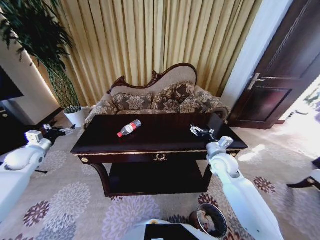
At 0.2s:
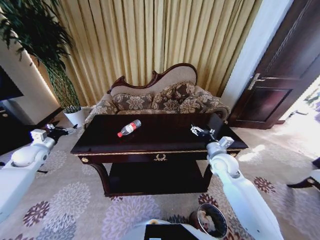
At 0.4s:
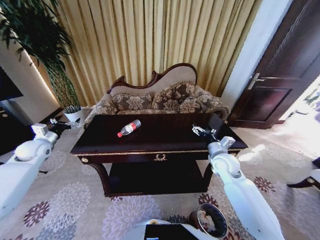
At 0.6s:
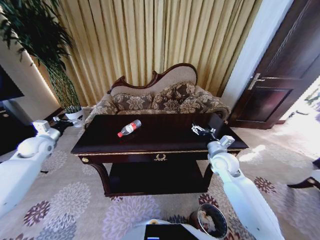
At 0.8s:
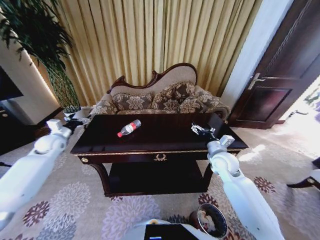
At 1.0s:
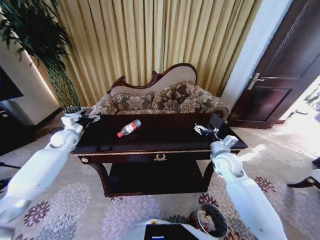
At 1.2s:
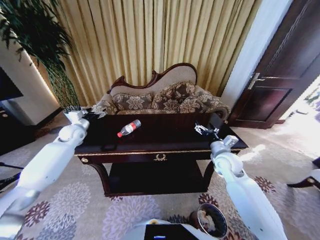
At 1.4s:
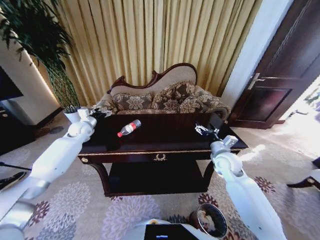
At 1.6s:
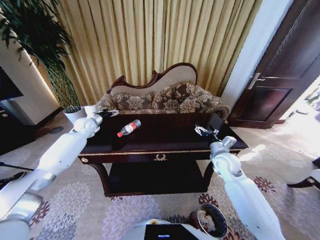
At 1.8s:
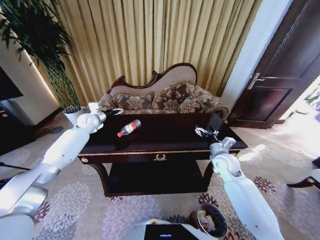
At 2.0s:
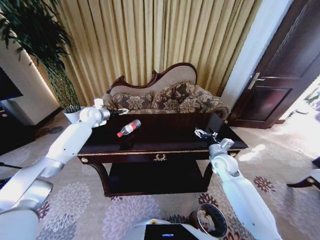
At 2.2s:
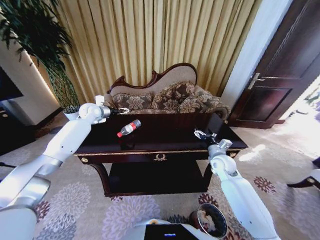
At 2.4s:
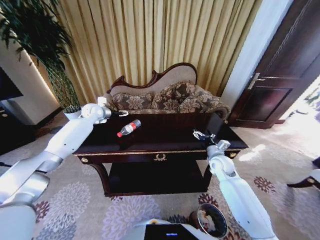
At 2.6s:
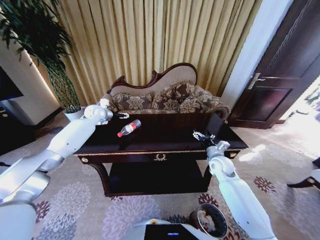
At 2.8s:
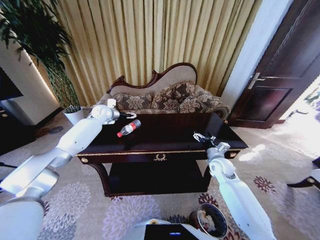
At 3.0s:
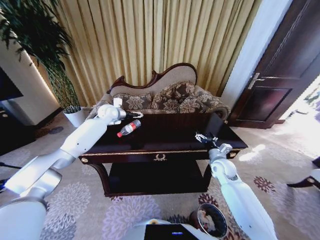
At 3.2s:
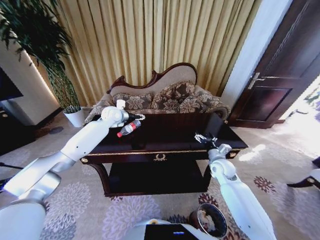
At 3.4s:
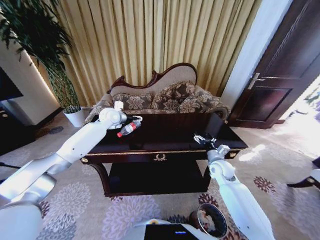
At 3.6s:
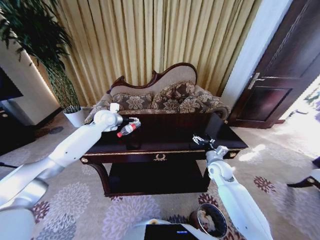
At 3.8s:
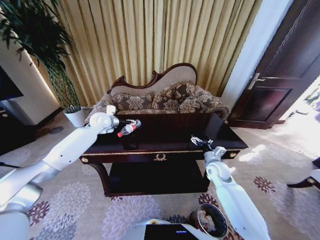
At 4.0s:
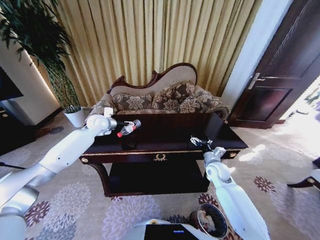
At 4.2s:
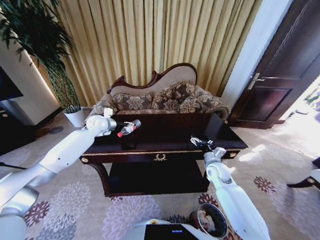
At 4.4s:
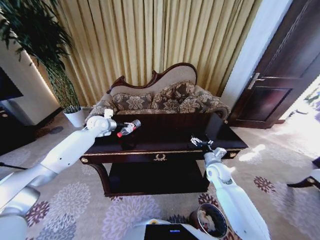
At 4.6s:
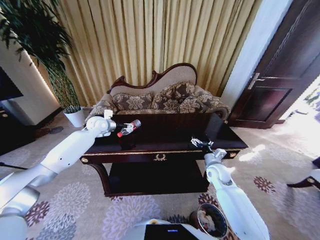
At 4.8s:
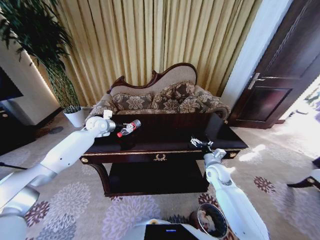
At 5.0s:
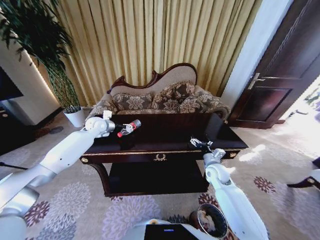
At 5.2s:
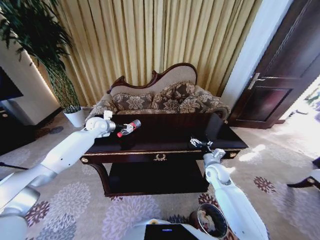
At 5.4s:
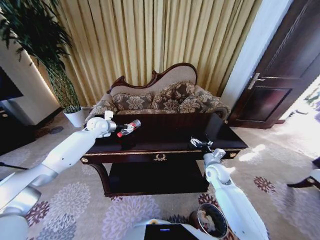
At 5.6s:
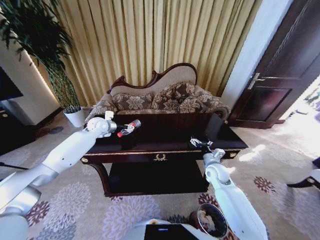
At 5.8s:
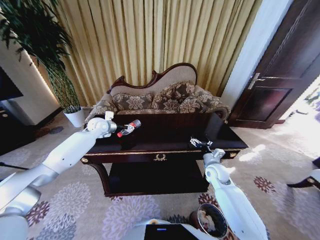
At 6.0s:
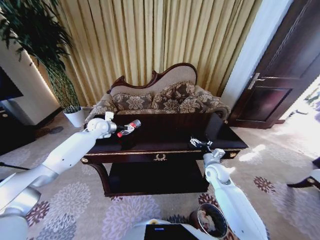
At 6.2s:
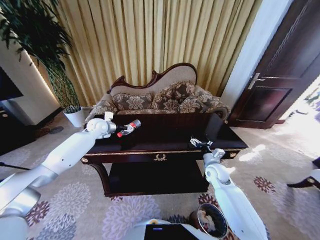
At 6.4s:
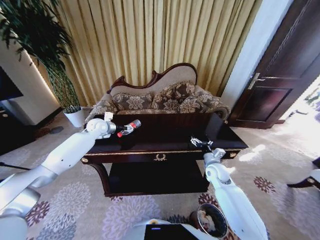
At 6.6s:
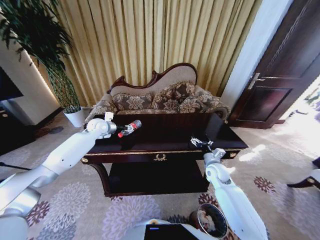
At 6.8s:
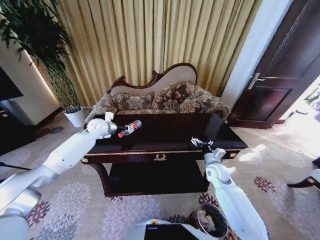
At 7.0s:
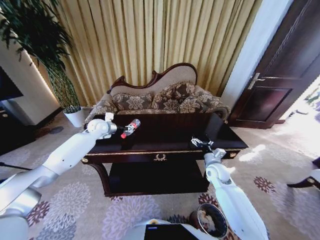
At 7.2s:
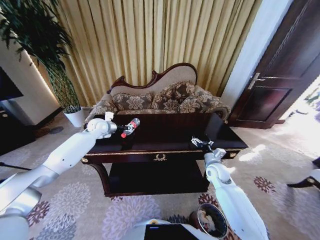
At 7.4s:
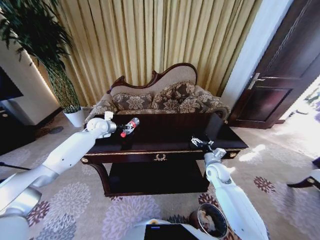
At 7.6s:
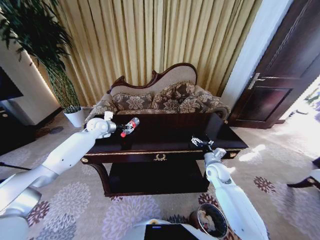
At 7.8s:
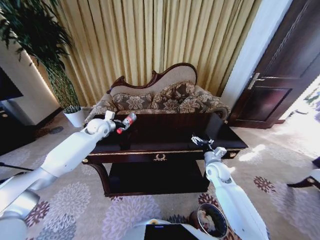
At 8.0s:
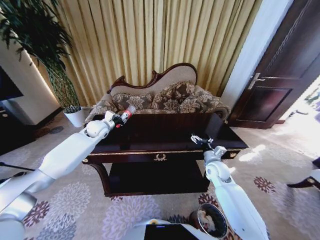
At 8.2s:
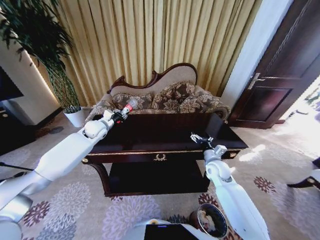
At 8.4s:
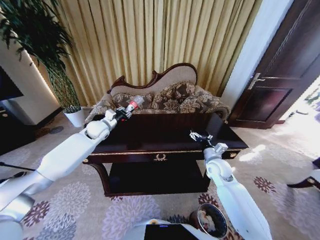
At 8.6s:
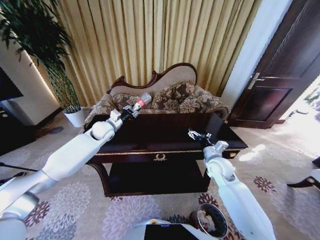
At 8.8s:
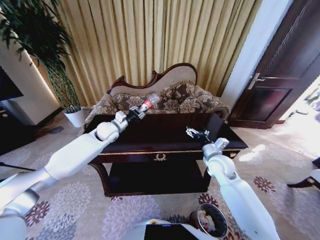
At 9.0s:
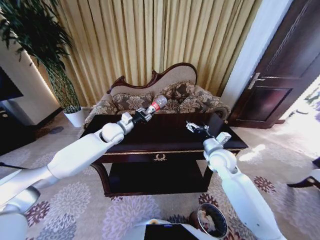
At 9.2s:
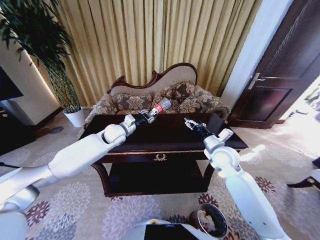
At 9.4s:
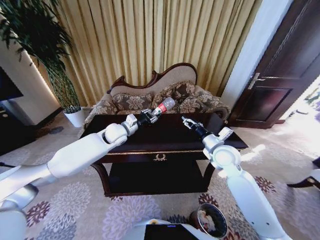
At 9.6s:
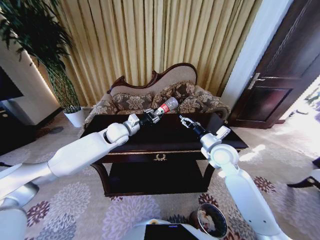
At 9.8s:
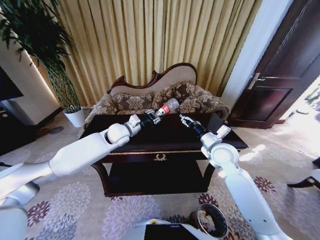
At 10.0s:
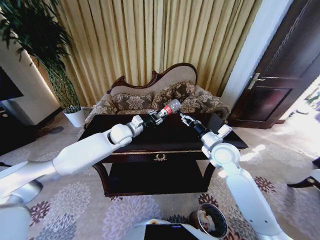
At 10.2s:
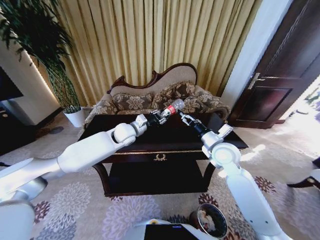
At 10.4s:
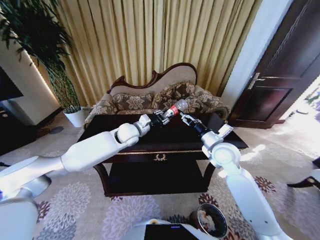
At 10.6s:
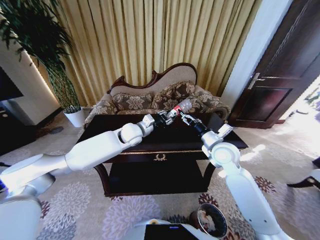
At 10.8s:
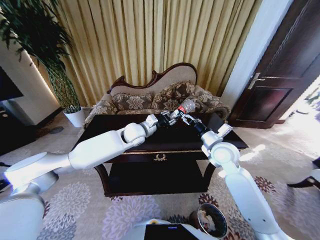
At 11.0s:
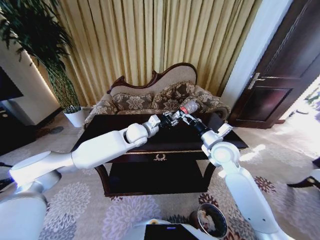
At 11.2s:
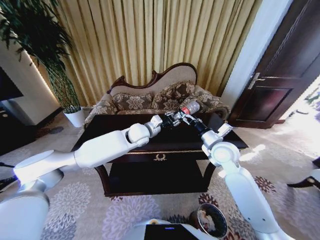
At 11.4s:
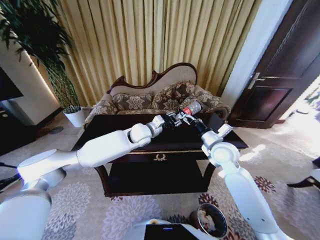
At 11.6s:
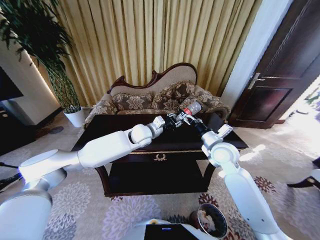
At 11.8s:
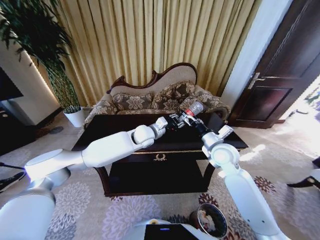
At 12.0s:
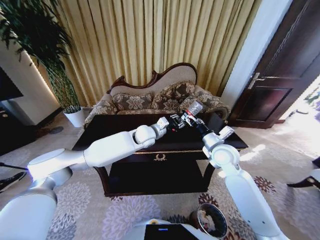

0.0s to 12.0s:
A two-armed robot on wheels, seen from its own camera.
Task of the whole recording: Move to the front of the table and place the trash on the table into the trash bin.
0.0s to 1.6s: The left gripper travels forward and to the right by some 25 cm.
1.6s to 3.0s: The right gripper goes about 5 cm downward. The left gripper is displaced to the right by approximately 10 cm.
3.0s to 4.4s: The left gripper moves backward, approximately 5 cm.
4.4s to 6.0s: There are only small adjustments of the grippers.
6.0s to 7.6s: The left gripper closes up.
7.6s to 9.0s: The right gripper heads upward, covering about 10 cm. Meanwhile the left gripper is displaced to the right and backward by some 10 cm.
9.0s to 10.4s: The left gripper is displaced to the right by approximately 10 cm. Meanwhile the right gripper ends up roughly 5 cm from where it was.
10.4s to 12.0s: The left gripper moves to the right, some 10 cm.

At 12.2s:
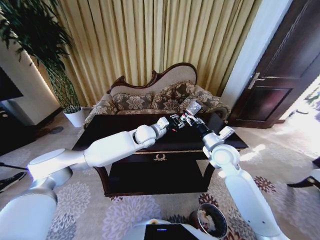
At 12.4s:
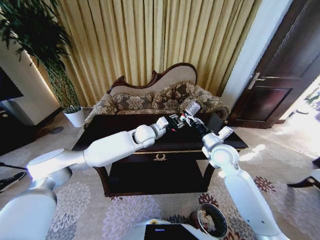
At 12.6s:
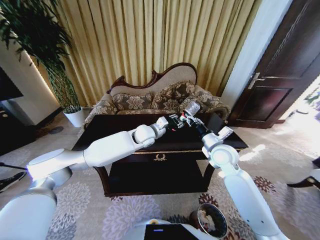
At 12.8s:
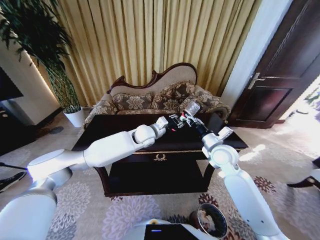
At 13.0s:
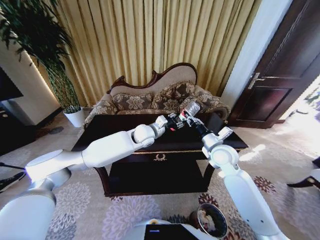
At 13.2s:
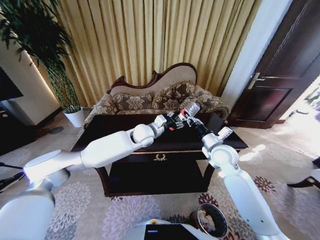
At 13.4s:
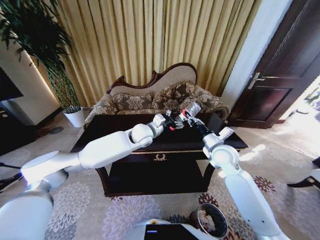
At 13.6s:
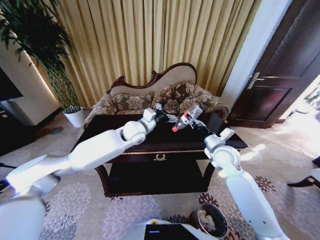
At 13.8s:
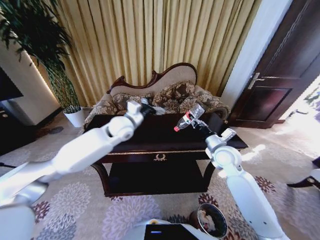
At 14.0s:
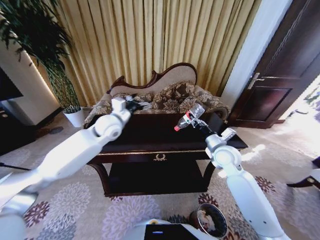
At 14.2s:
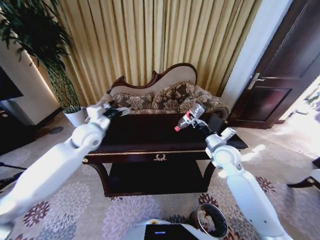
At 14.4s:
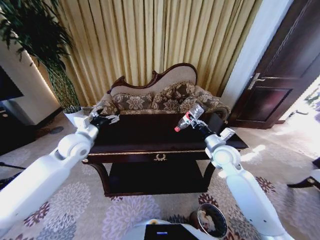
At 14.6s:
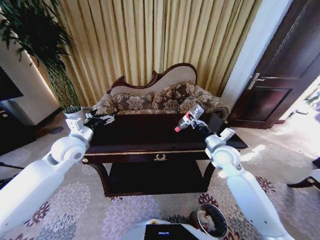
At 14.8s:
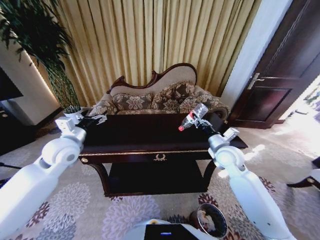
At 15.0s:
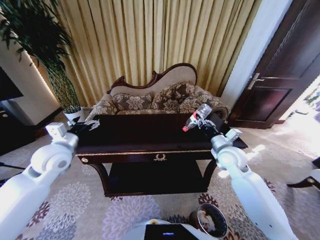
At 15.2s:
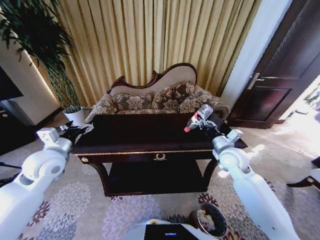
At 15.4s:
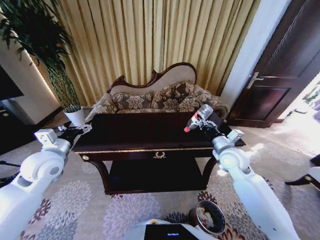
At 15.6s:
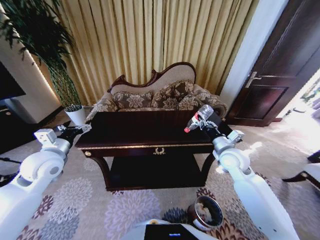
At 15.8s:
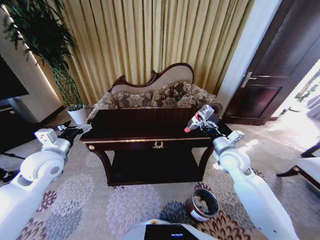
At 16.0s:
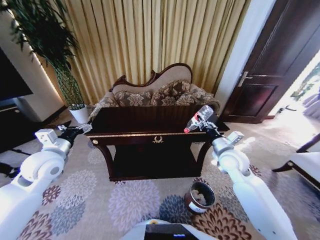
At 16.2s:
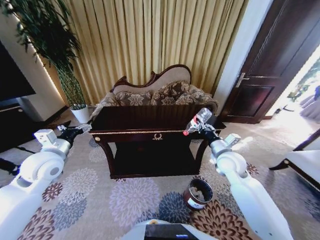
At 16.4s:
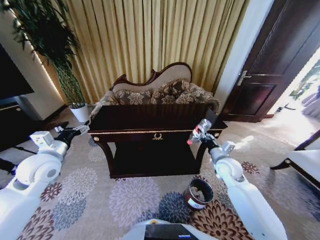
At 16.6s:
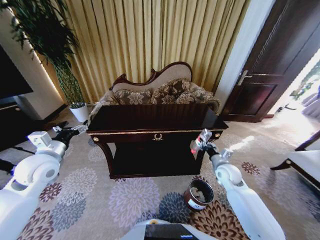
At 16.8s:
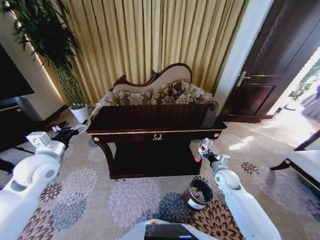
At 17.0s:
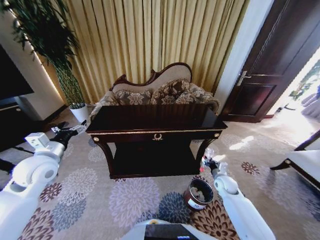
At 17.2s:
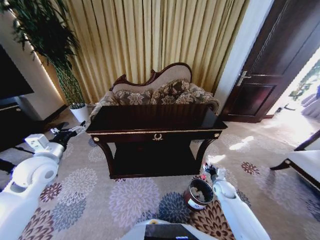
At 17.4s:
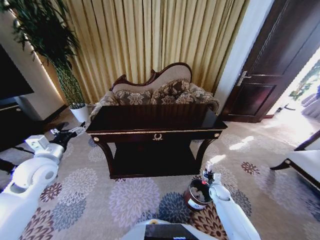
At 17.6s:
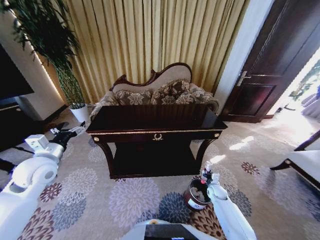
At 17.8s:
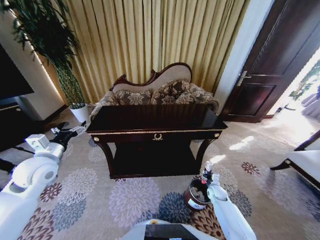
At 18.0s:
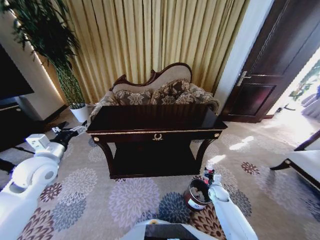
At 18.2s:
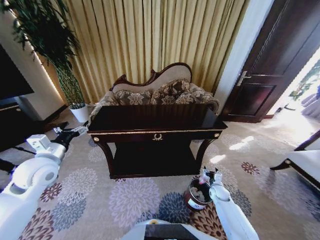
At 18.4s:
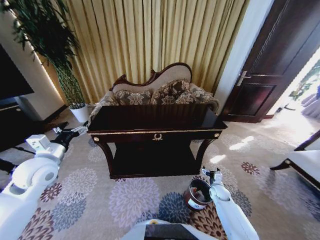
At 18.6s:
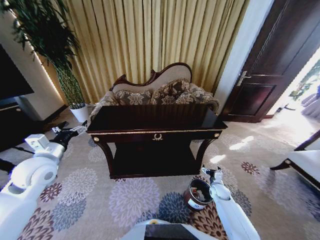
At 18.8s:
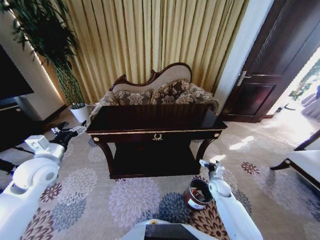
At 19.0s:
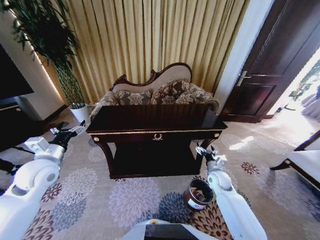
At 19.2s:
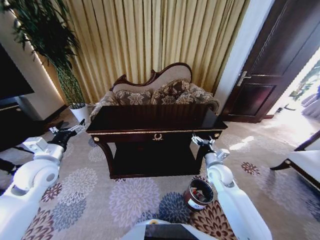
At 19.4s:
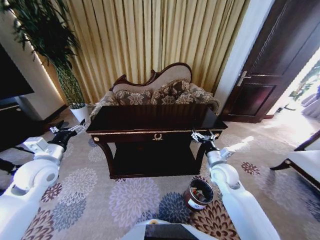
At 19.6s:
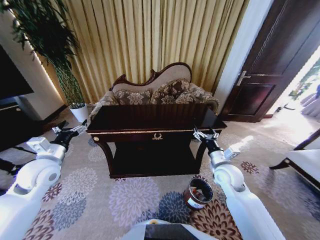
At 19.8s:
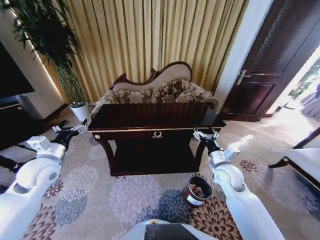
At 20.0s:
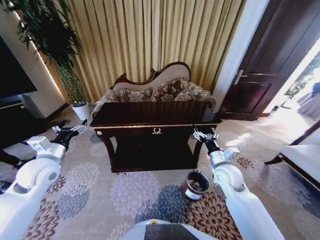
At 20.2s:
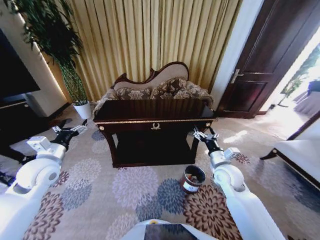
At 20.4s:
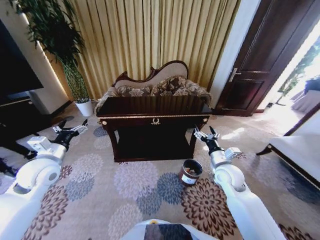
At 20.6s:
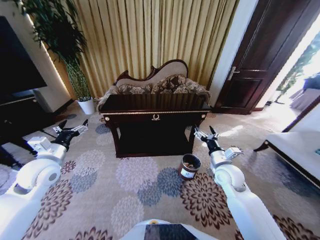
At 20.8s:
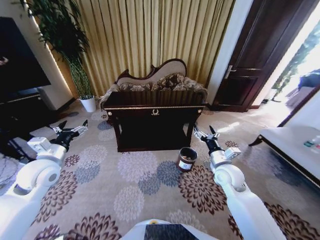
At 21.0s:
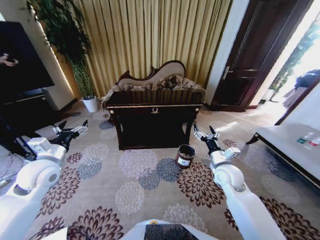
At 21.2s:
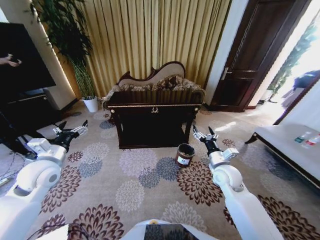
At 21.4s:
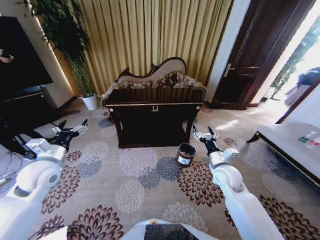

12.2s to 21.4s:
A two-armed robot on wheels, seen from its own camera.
Task of the whole recording: Move to the front of the table and place the trash on the table into the trash bin.
12.2s to 13.8s: The right gripper closes its fingers. The left gripper goes roughly 10 cm to the left and upward, and opens its fingers.
13.8s to 15.2s: The left gripper shifts about 25 cm to the left and backward.
15.2s to 16.8s: The right gripper moves downward, roughly 15 cm.
16.8s to 18.4s: The right gripper goes roughly 15 cm downward, and opens up.
18.4s to 19.8s: The right gripper is displaced upward by approximately 25 cm.
